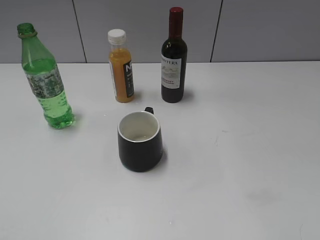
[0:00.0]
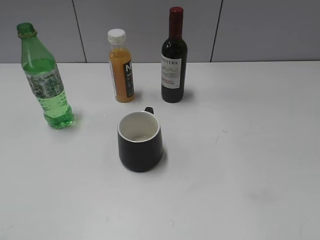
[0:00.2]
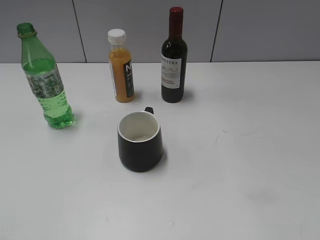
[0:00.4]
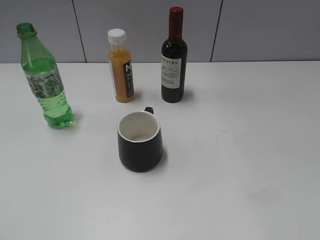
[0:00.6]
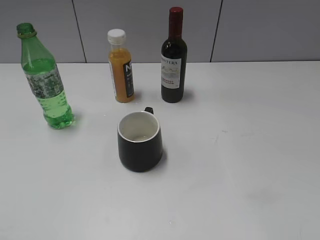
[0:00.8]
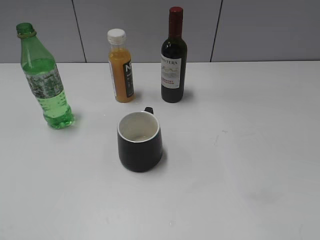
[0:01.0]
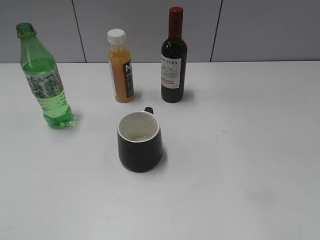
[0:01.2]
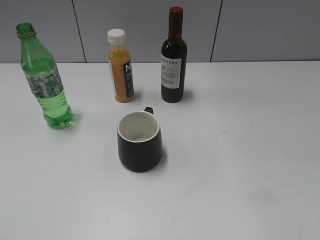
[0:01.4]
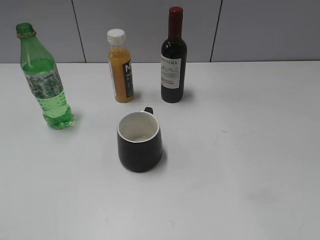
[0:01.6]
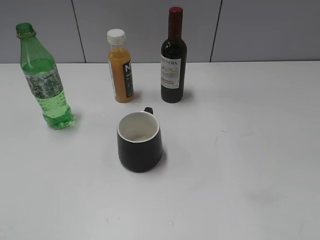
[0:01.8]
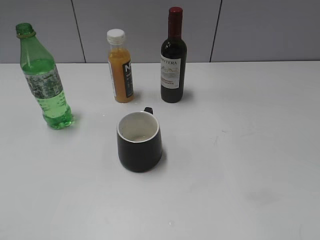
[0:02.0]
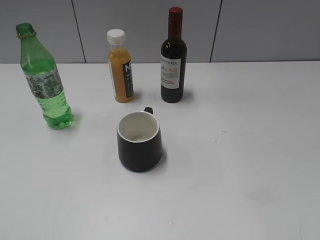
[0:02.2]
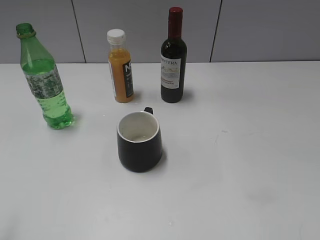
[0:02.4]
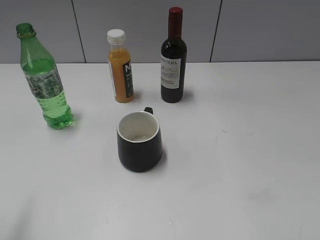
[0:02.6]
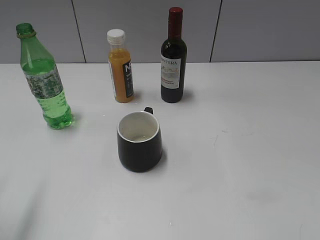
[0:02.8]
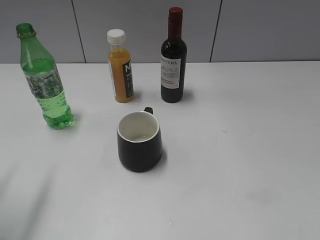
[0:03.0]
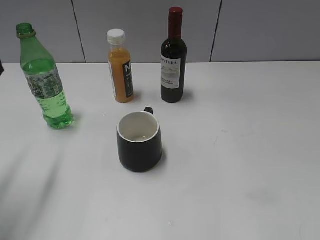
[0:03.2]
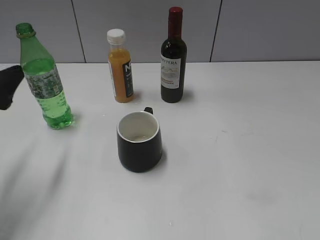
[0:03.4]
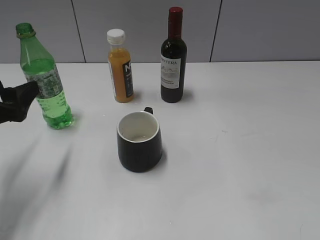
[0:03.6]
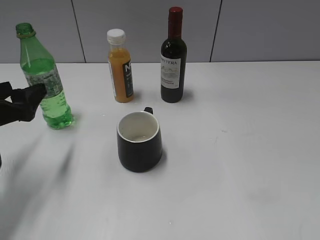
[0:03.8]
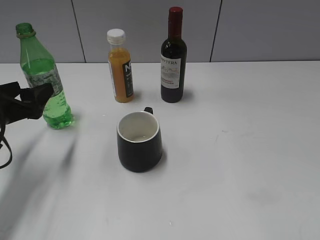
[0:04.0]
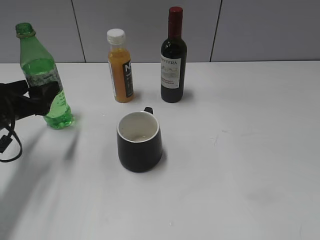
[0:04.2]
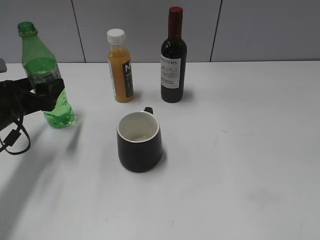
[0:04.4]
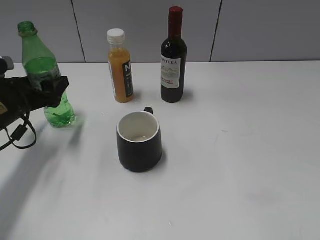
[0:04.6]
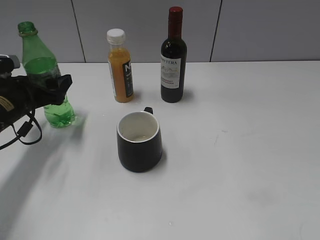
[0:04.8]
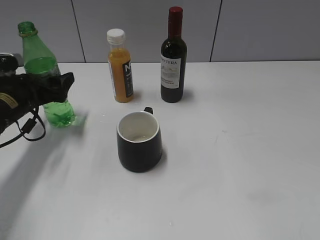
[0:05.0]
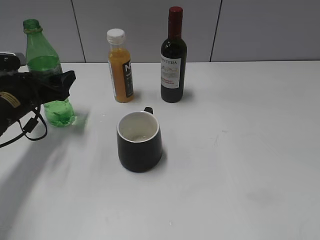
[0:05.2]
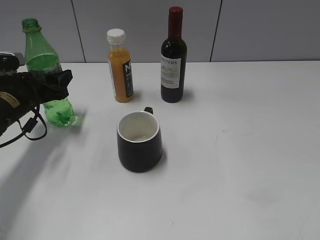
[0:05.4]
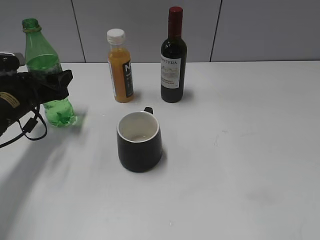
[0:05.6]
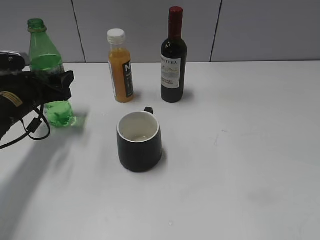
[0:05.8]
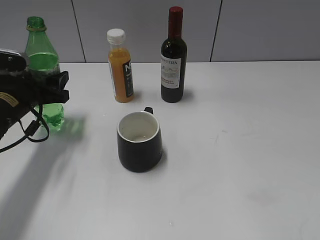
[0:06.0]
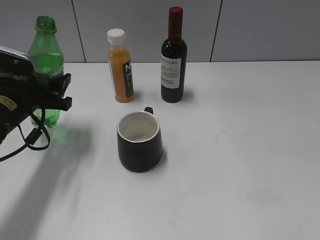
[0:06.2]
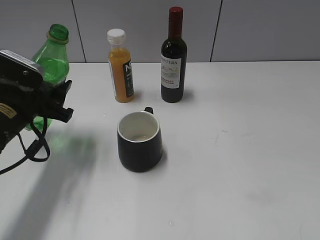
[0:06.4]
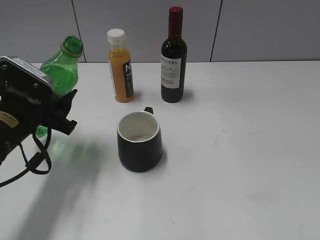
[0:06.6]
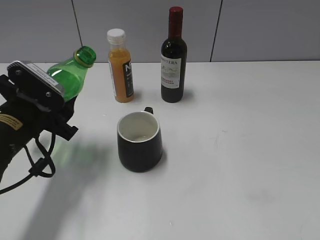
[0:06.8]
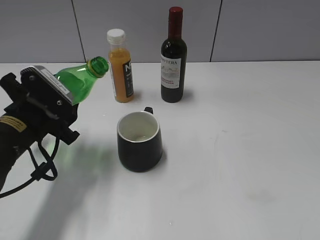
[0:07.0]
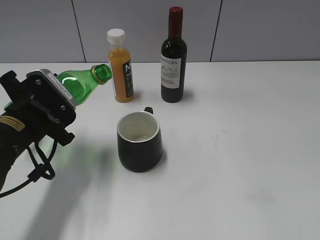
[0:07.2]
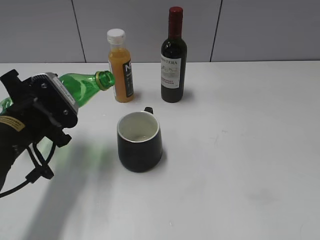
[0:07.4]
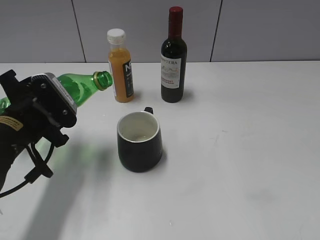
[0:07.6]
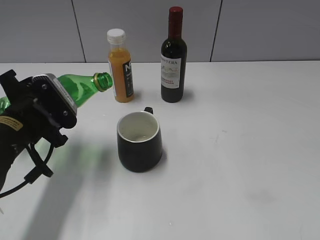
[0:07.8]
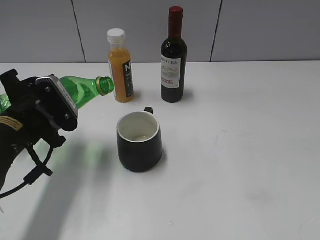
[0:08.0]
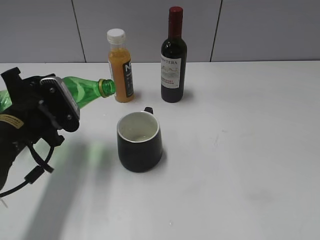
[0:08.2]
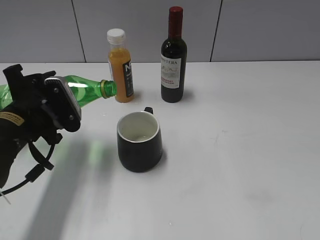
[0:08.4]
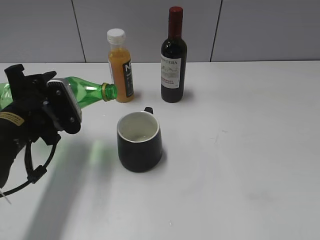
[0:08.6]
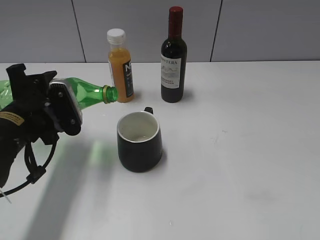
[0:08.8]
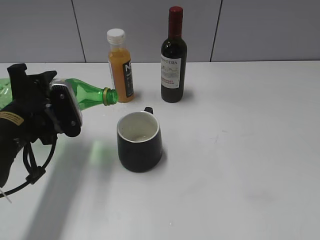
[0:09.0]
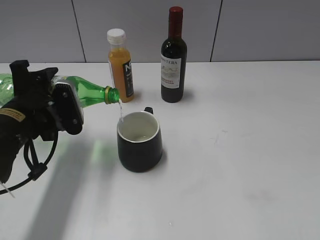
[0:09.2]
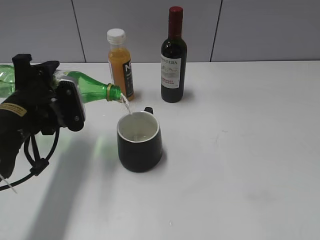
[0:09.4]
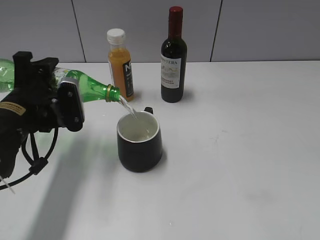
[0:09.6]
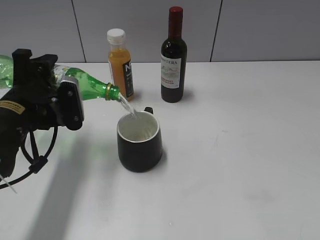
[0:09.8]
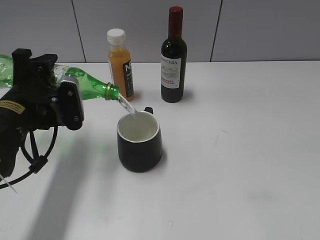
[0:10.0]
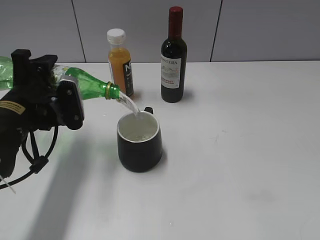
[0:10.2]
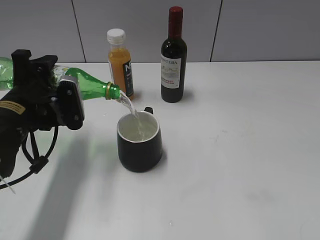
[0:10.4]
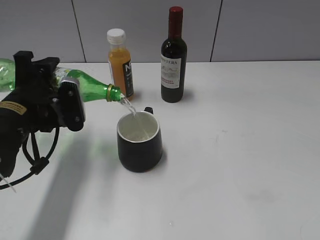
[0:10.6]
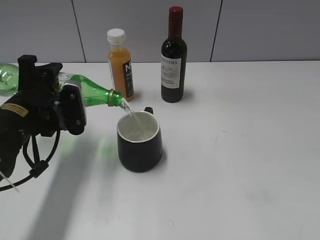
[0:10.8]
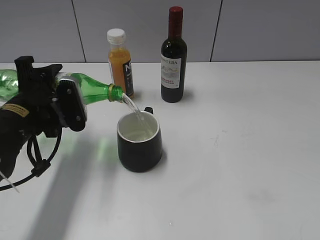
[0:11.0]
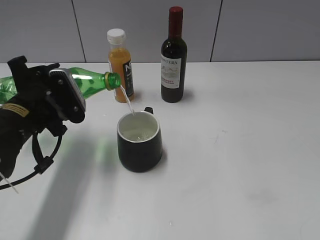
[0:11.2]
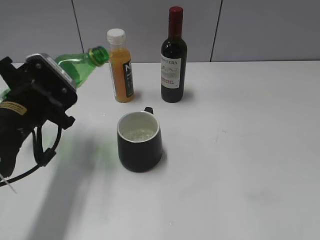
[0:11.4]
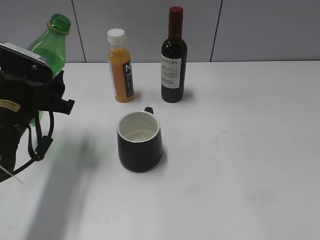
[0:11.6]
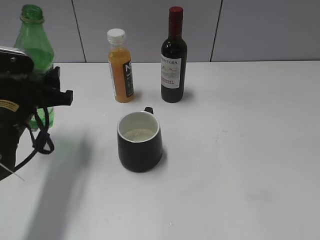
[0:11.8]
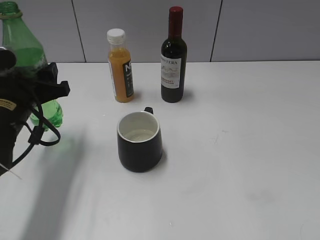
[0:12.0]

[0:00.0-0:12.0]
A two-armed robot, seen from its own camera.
Step, 0:00.0 to 0:05.6: Grasp the bottle with sprite with left gripper.
Step, 0:05.8 to 0:11.2: Pour the sprite from bottle to cup with left gripper.
0:01.6 to 0:03.0: The left gripper shifts some 15 cm forward.
0:03.0 to 0:04.4: The left gripper shifts roughly 20 cm forward and downward.
0:04.4 to 0:06.0: The left gripper closes up.
0:06.0 to 0:07.6: The left gripper goes about 10 cm backward.
0:07.6 to 0:09.0: The grippers move only a little.
0:09.0 to 0:10.4: The grippers stay close to where they were, moving slightly.

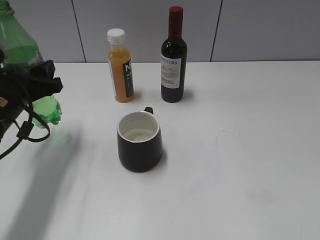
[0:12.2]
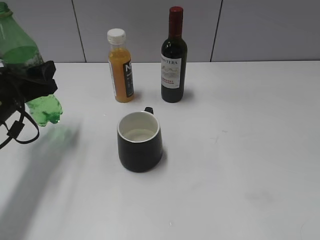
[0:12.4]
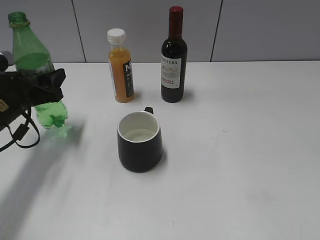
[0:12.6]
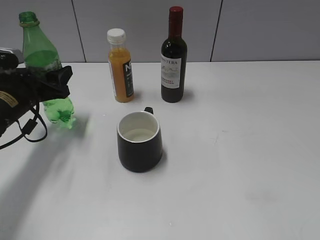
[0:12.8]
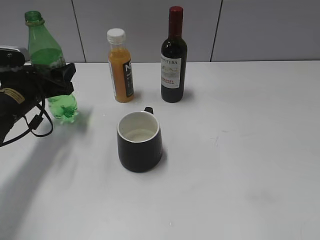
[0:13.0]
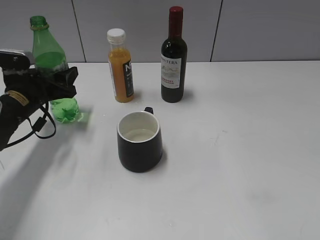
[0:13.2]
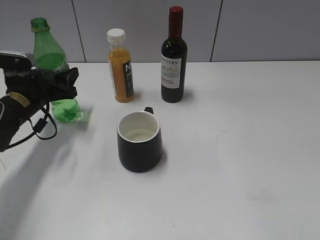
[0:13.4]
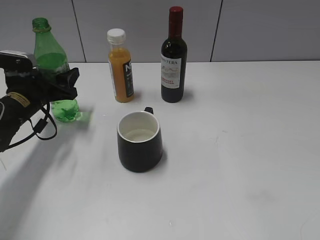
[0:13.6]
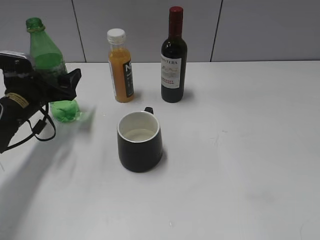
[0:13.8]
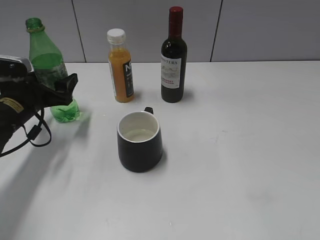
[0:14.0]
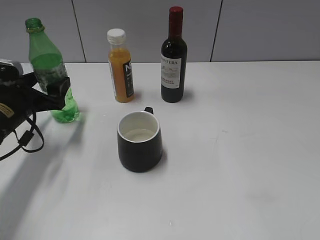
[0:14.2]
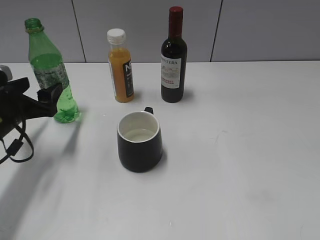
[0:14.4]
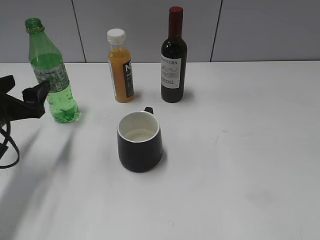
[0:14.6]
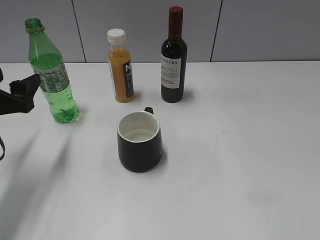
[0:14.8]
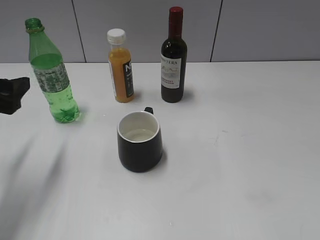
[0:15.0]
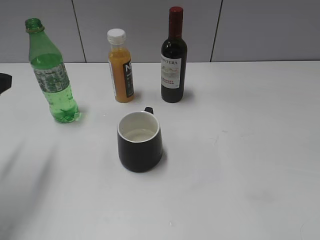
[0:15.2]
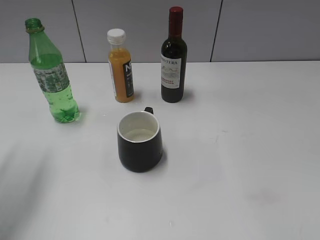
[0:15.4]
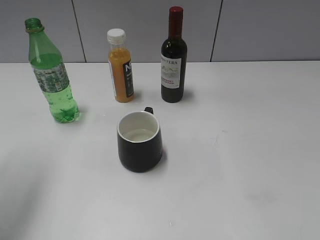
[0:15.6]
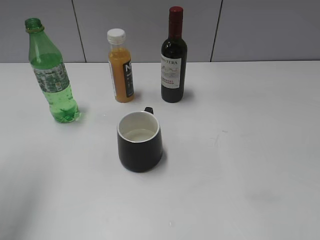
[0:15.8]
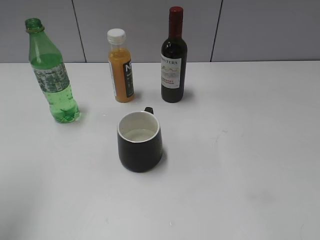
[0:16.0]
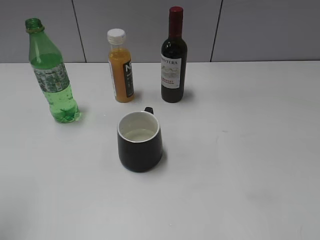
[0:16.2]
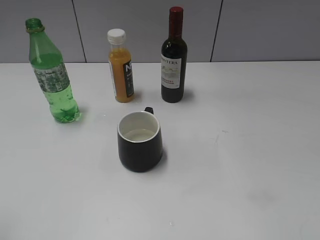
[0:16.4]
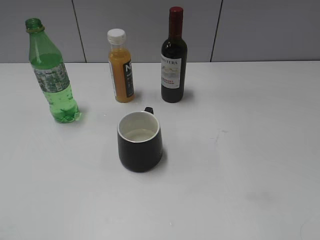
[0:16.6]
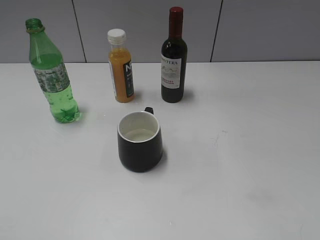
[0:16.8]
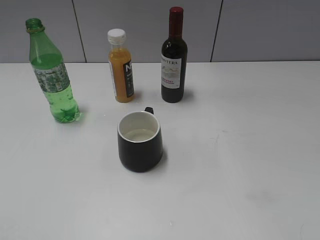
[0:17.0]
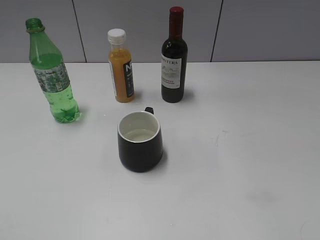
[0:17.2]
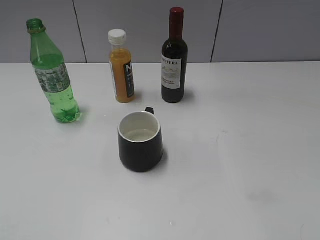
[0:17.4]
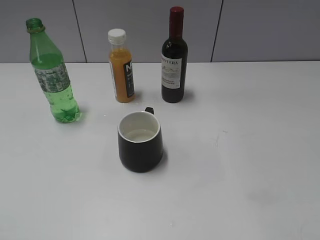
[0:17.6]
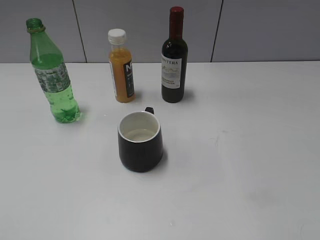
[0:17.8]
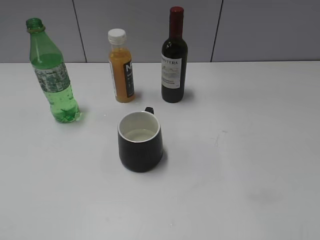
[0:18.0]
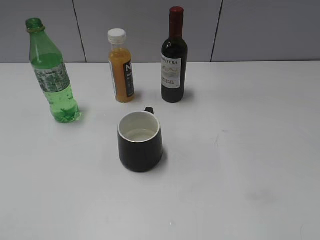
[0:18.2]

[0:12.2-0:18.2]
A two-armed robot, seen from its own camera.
Step, 0:12.2 to 0:14.4: Place the sprite bottle on the table with left gripper.
0:12.2 to 0:13.8: The left gripper travels forward and downward by roughly 10 cm, and opens its fingers.
0:13.8 to 0:15.2: The left gripper moves backward and upward, some 20 cm.
0:15.2 to 0:16.6: The left gripper goes some 20 cm backward and upward.

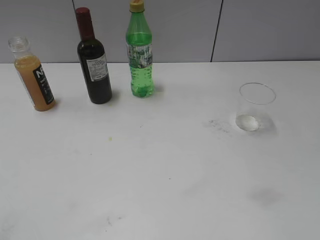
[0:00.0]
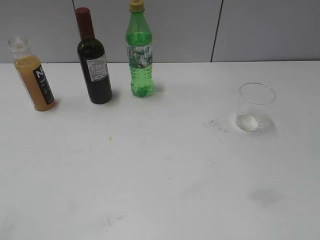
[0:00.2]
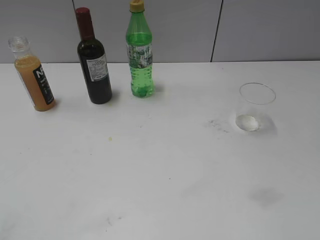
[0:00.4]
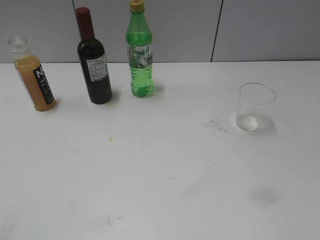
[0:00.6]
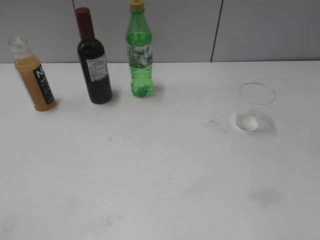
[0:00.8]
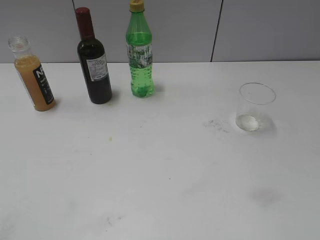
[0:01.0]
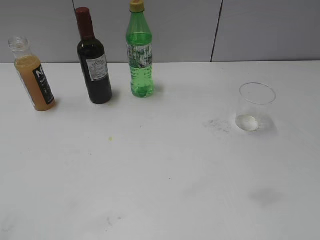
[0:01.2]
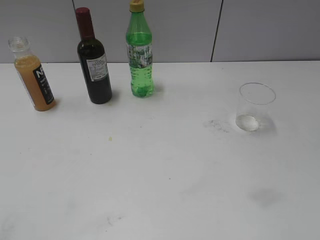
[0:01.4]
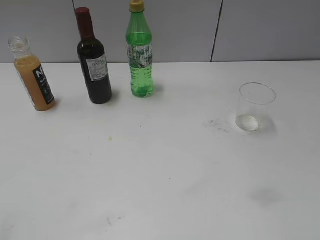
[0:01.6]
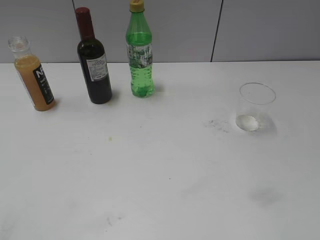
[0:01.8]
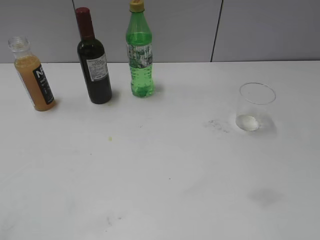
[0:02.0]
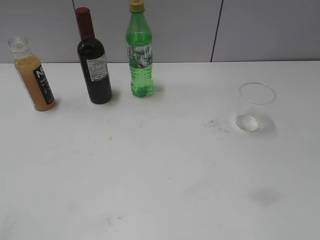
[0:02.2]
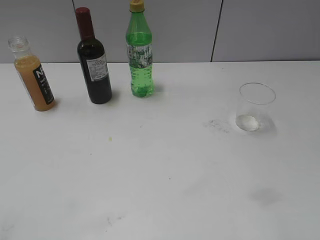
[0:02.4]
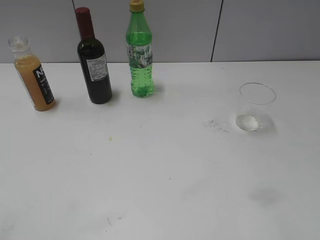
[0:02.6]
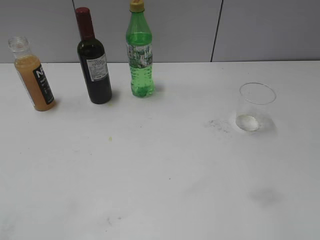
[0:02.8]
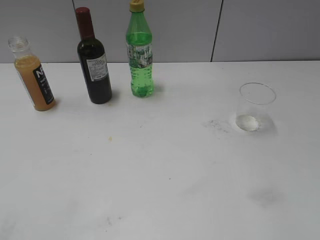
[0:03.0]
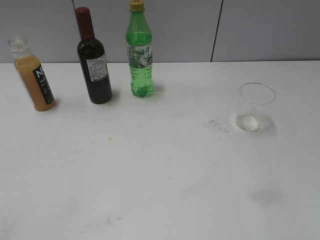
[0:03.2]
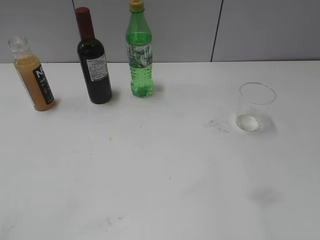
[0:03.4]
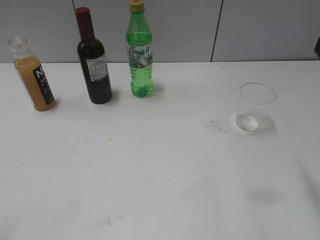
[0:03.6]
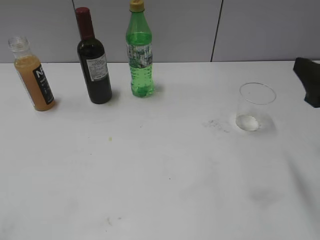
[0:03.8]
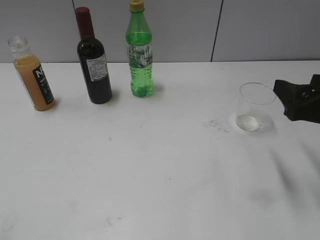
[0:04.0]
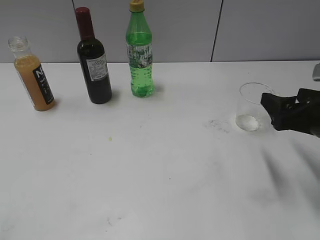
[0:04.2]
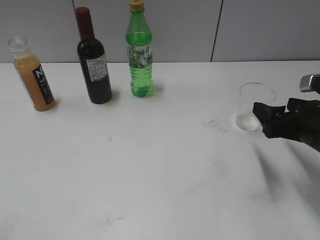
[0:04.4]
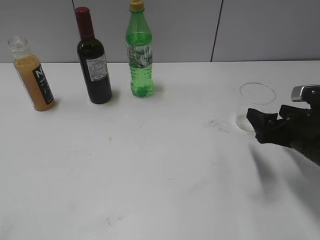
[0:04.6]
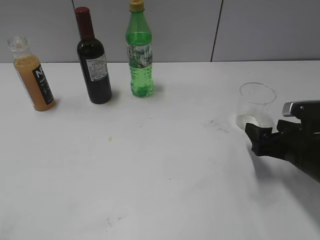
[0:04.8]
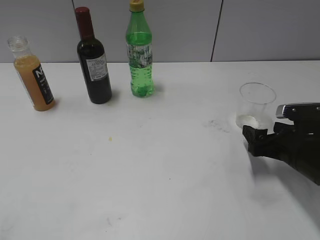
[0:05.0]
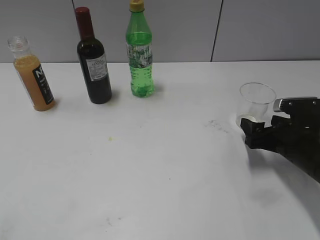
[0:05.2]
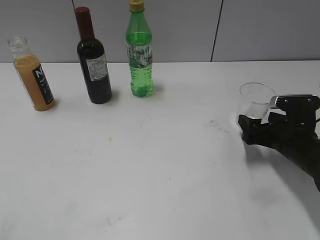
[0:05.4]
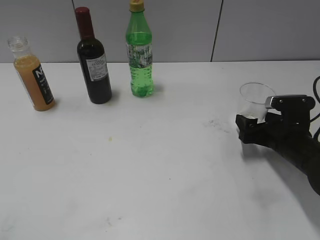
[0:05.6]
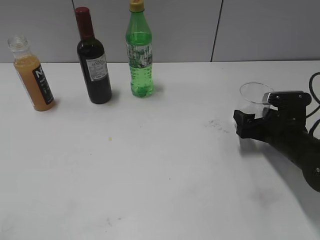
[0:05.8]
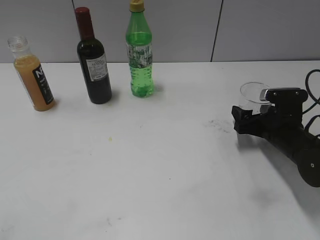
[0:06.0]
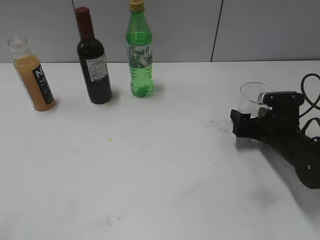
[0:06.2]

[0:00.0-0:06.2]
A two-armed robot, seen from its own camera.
0:03.2 to 0:04.6: The right gripper shifts roughly 25 cm downward and forward, and opens its fingers.
0:04.6 to 0:06.2: The right gripper is displaced downward and forward by some 10 cm.
